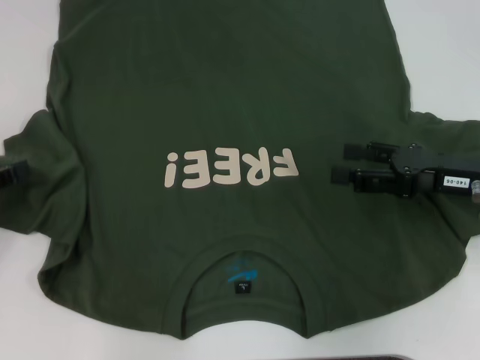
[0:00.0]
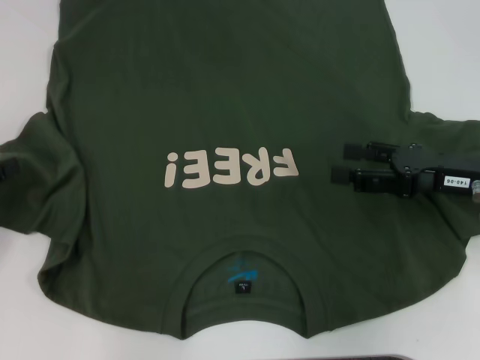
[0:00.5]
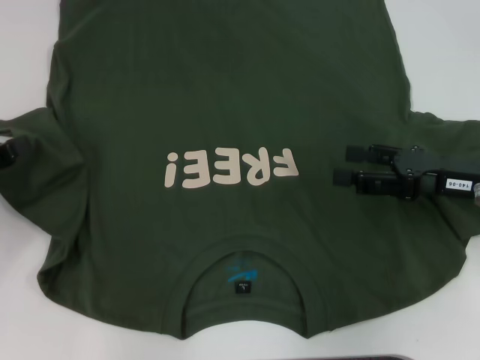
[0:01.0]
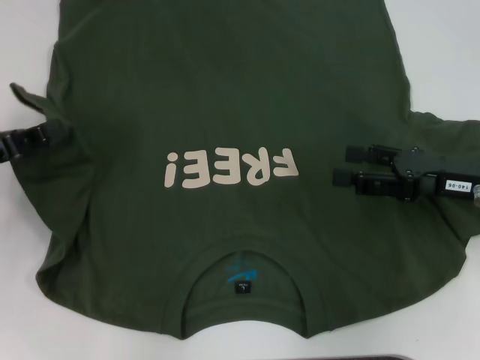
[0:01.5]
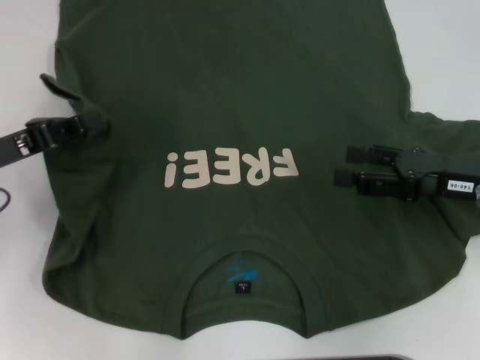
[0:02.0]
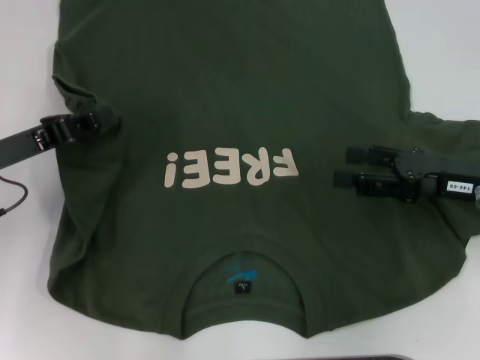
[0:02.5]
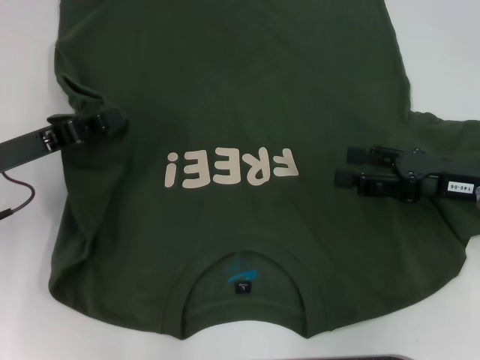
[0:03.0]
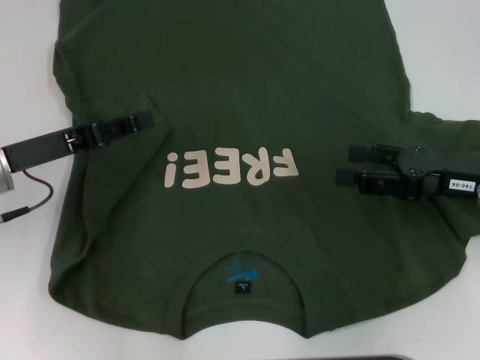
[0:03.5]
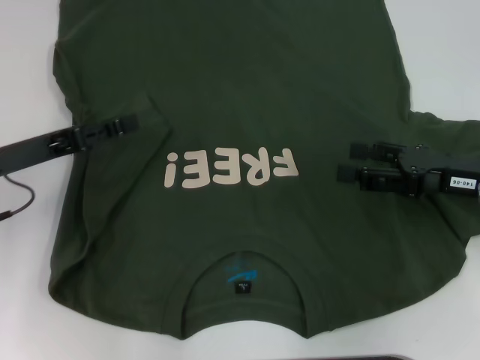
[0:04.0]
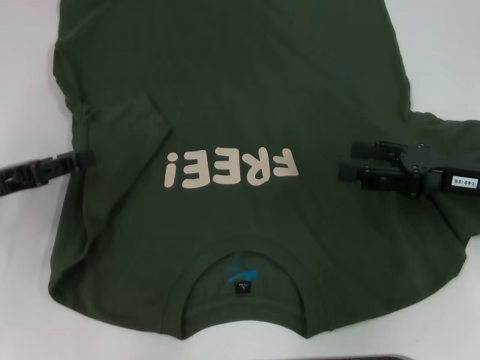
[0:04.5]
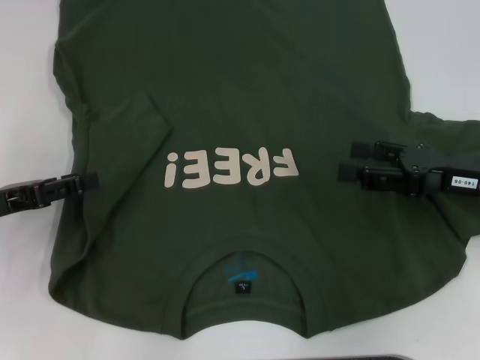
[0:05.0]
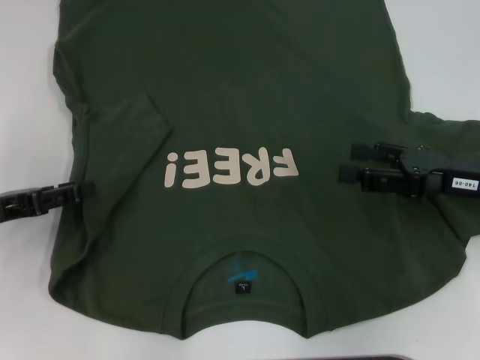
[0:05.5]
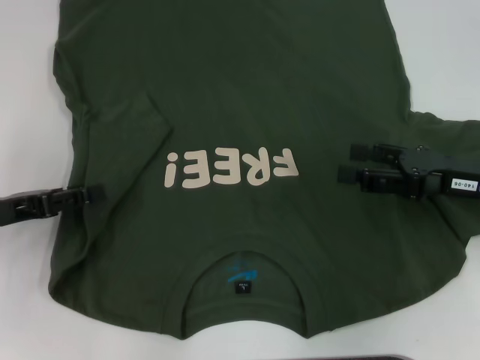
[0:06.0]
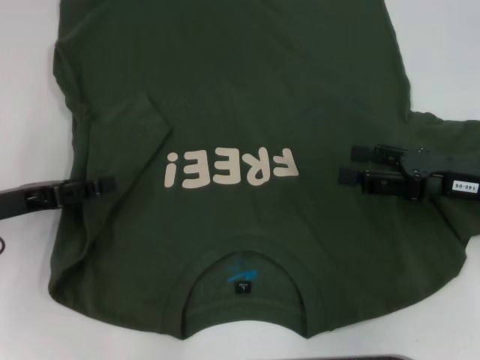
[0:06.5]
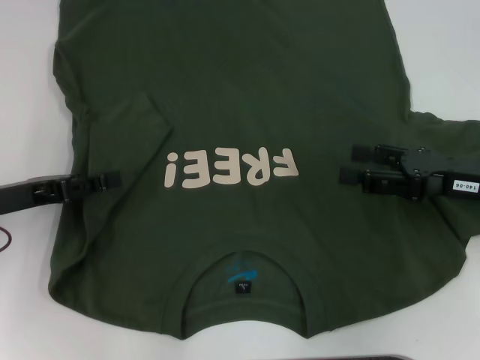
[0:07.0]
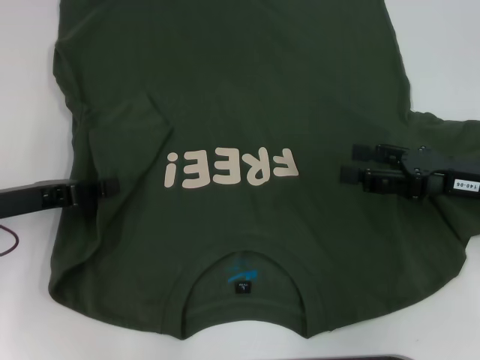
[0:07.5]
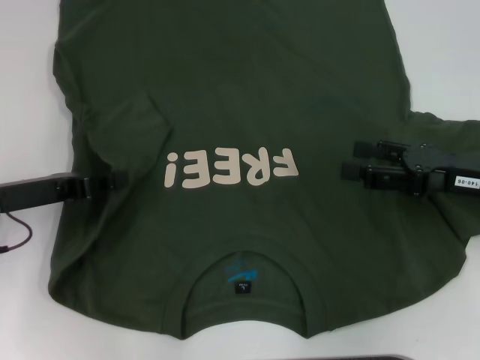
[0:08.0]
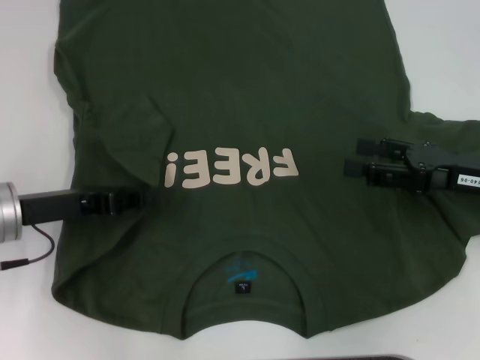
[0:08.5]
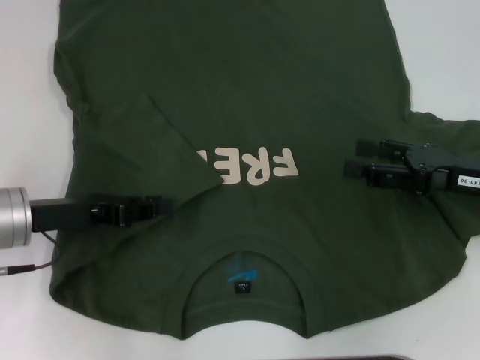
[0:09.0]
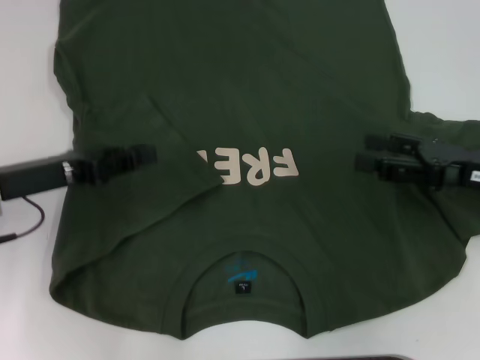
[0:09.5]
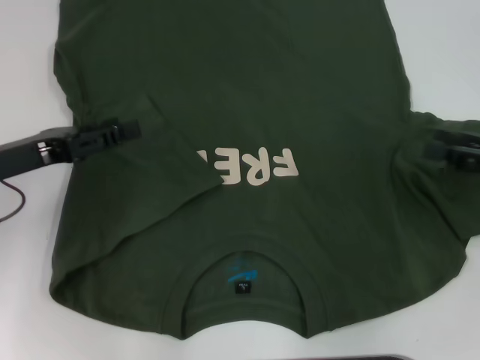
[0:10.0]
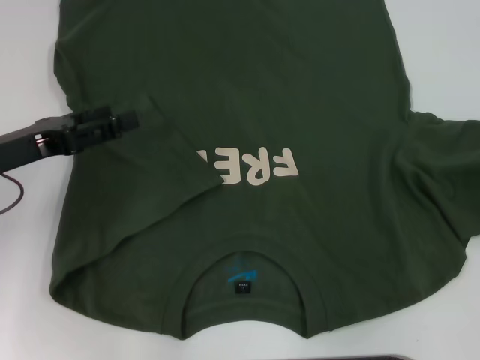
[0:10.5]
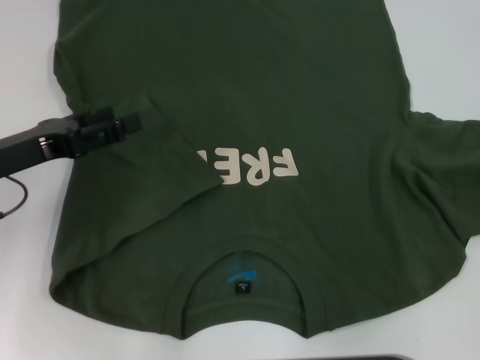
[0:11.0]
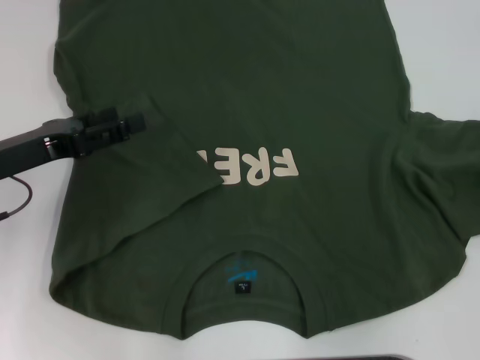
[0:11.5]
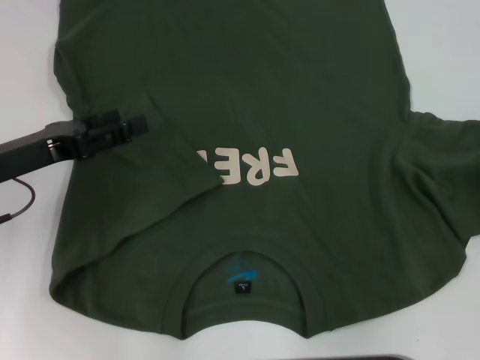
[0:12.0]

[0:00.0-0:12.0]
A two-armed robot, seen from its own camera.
0:00.0 to 0:02.0: The left gripper goes roughly 5 cm to the right, and closes up.
0:02.0 to 0:04.0: The left gripper opens.
0:04.0 to 0:06.0: The left gripper ends up approximately 5 cm from where it was.
0:06.0 to 0:08.0: The left gripper closes.
0:08.0 to 0:10.0: The left gripper opens. Meanwhile the right gripper goes roughly 5 cm to the right.

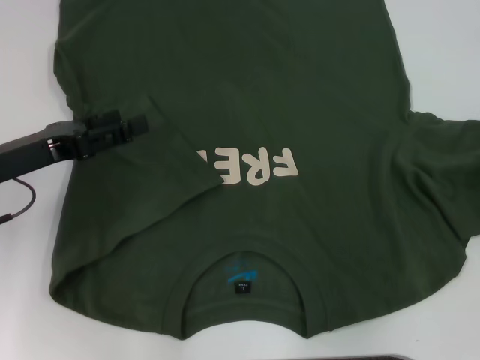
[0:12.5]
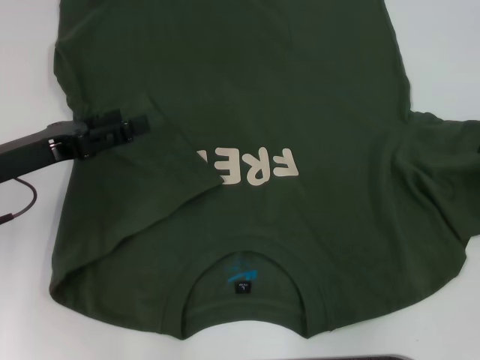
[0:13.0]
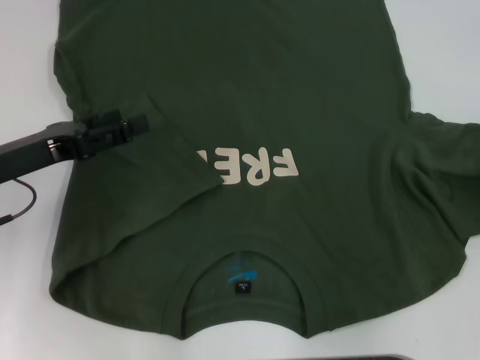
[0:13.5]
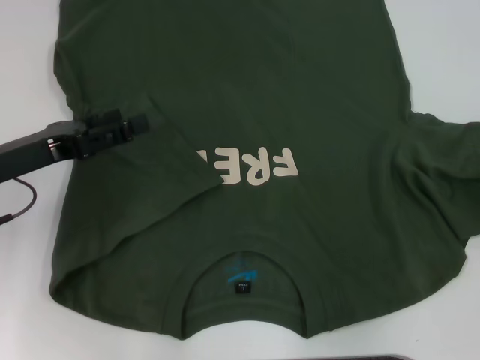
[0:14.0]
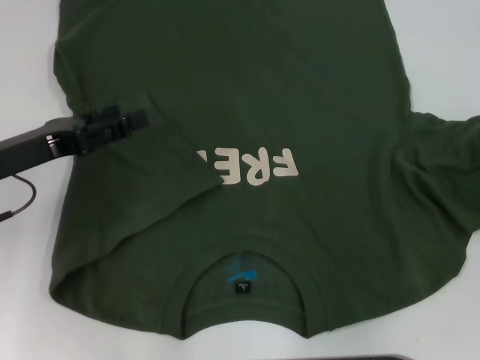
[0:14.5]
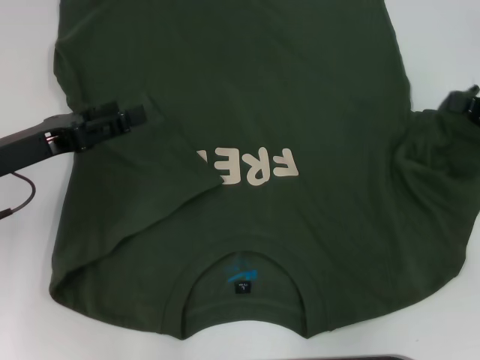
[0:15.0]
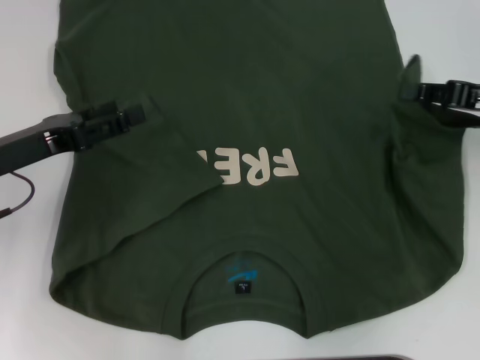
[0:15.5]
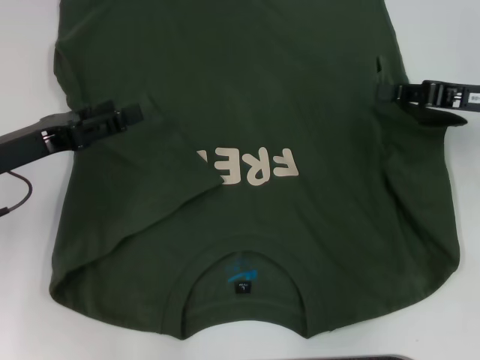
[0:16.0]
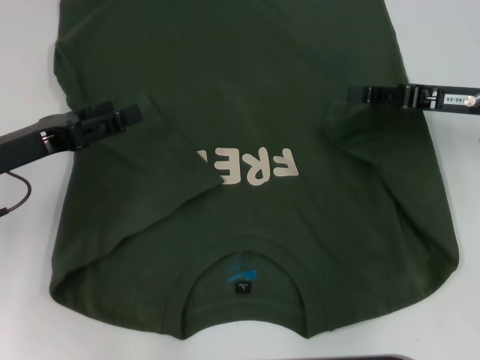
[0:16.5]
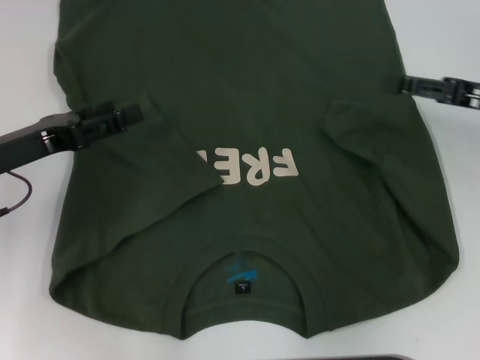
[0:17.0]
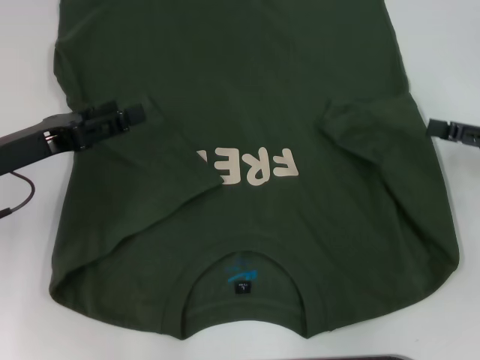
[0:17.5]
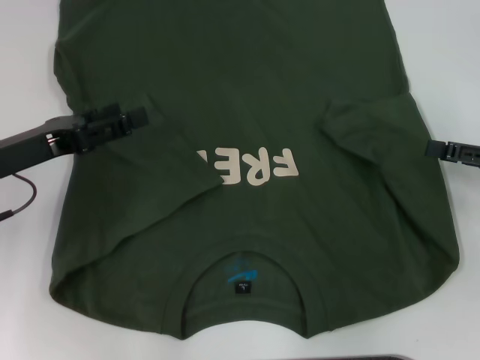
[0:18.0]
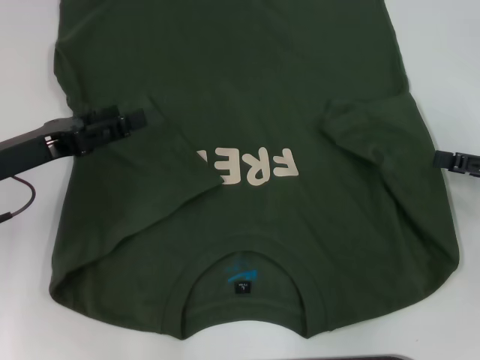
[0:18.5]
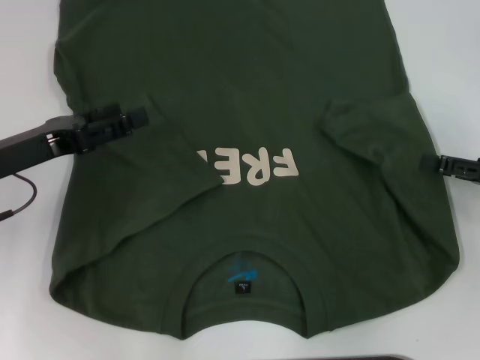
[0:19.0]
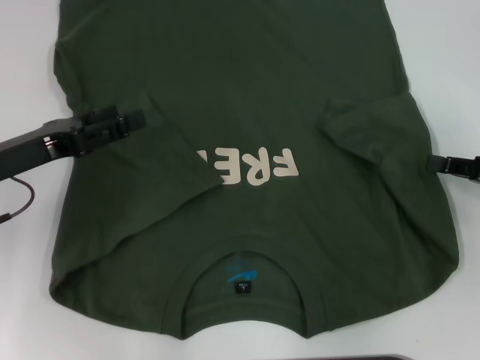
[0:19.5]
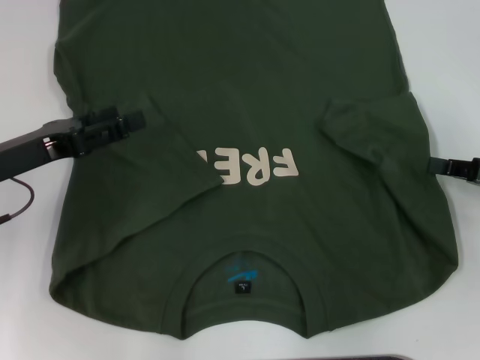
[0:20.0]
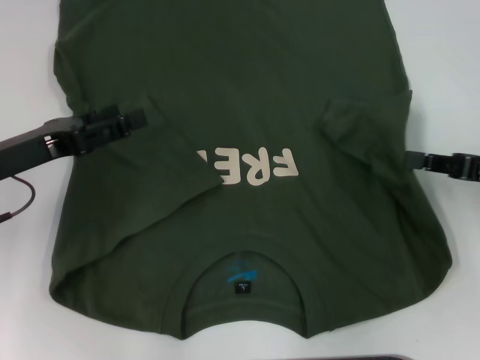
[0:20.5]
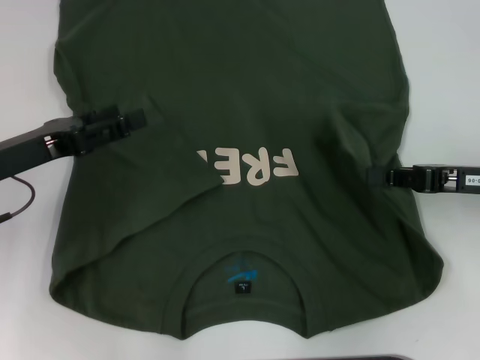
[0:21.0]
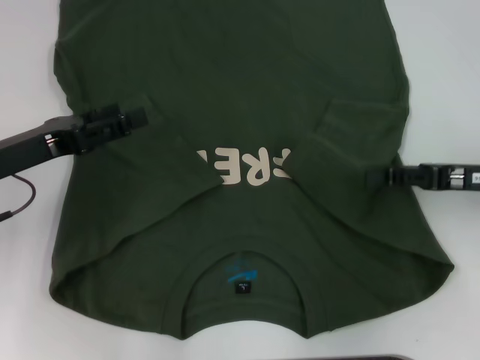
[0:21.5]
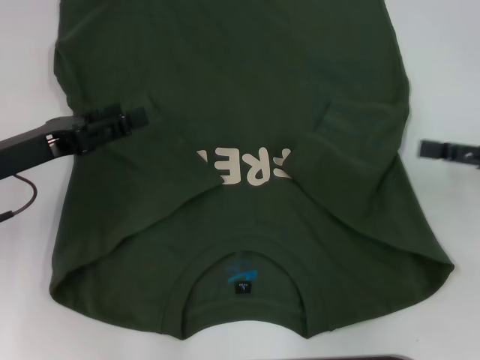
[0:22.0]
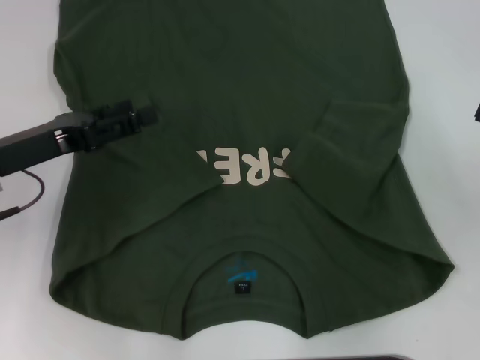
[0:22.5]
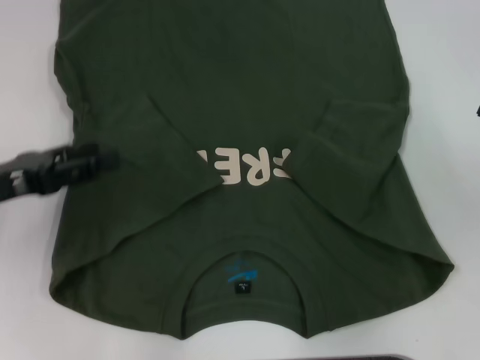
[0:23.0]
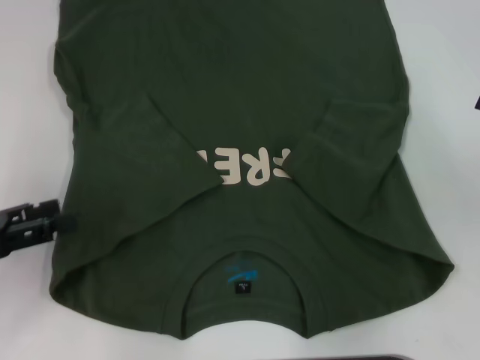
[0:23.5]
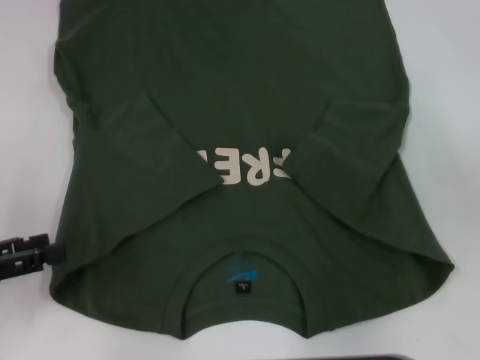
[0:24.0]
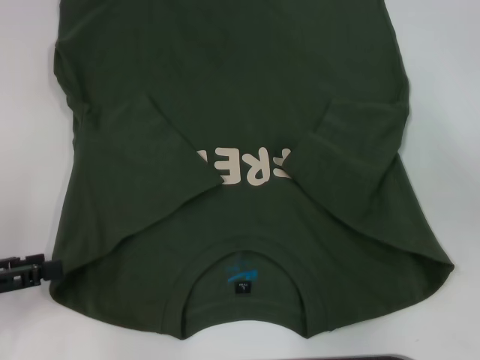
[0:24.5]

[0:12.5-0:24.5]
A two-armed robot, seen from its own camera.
Step, 0:15.0 to 0:17.0: Fold the bottom right sleeve with your right hand.
0:14.5 to 0:16.5: The right gripper heads to the left and forward, covering about 15 cm.
0:16.5 to 0:18.5: The right gripper is displaced to the right and backward by about 10 cm, and opens its fingers.
0:18.5 to 0:20.5: The right gripper closes.
0:20.5 to 0:22.5: The right gripper changes place by roughly 5 cm, and opens.
0:22.5 to 0:24.5: The left gripper goes approximately 15 cm backward and to the left.

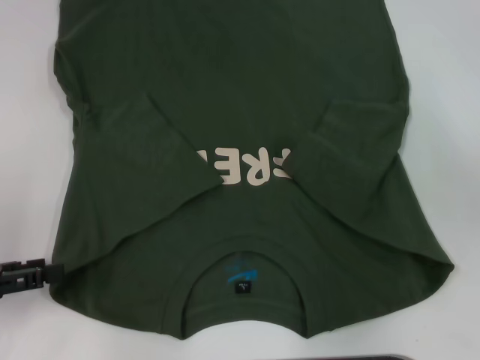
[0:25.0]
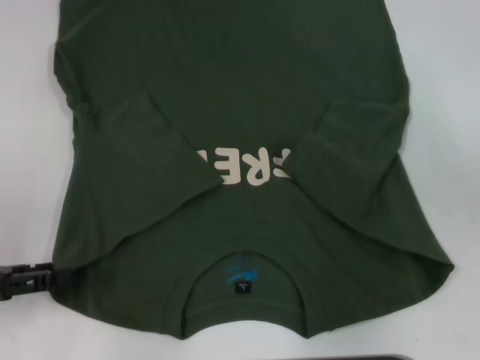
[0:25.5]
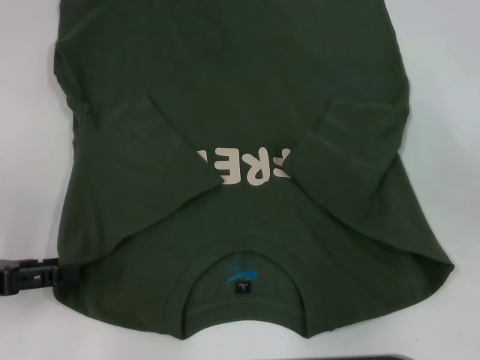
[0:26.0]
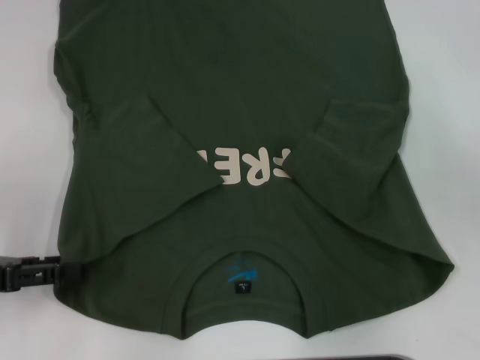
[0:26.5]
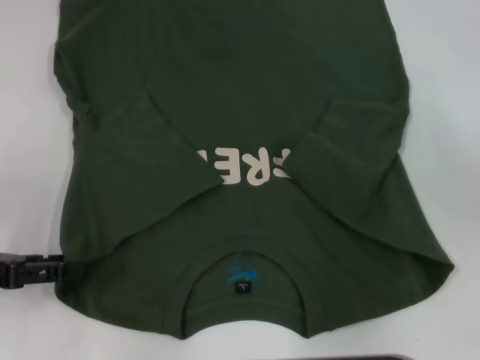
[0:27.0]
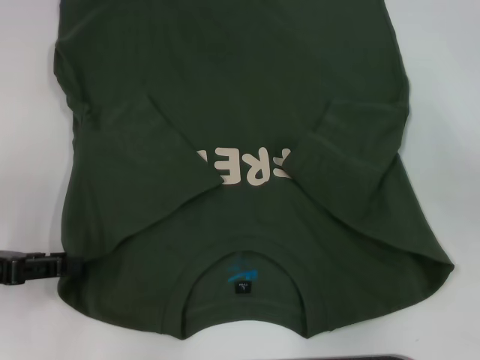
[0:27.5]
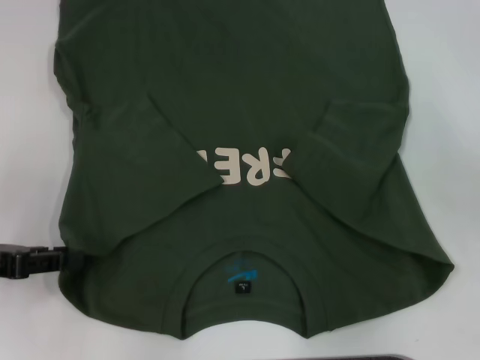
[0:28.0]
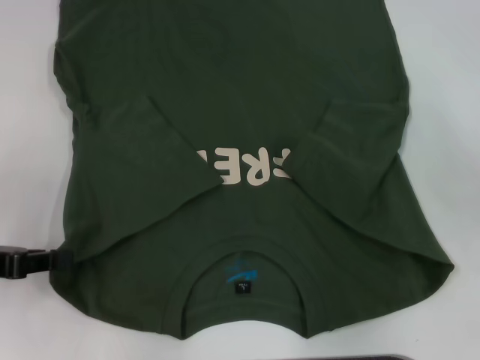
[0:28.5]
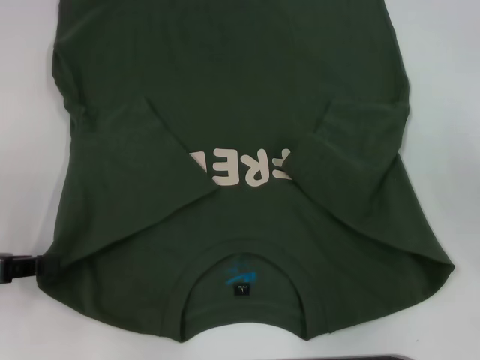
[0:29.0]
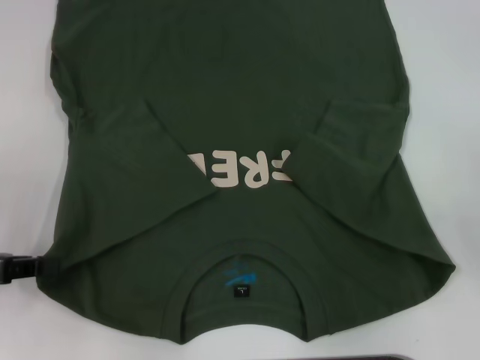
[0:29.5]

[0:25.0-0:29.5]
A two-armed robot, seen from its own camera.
0:25.0 to 0:27.0: There are only small adjustments of the grippers.
0:27.0 to 0:29.5: The left gripper closes up. The right gripper travels backward by about 5 cm.
